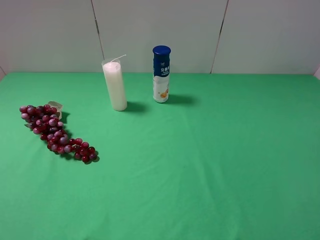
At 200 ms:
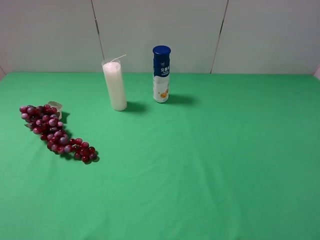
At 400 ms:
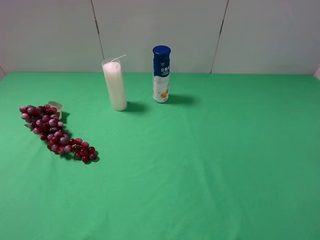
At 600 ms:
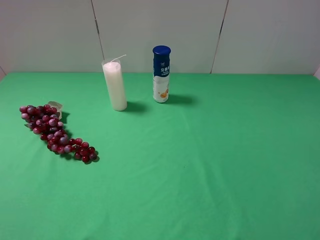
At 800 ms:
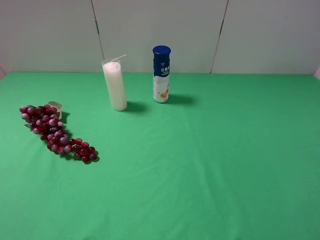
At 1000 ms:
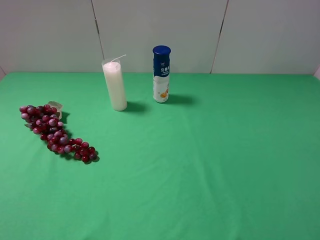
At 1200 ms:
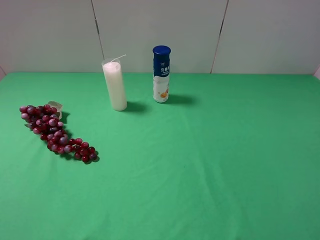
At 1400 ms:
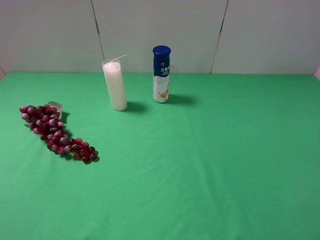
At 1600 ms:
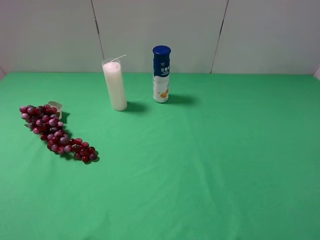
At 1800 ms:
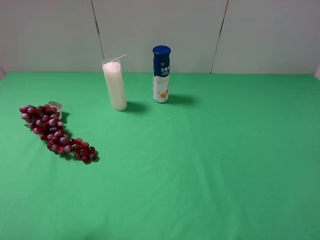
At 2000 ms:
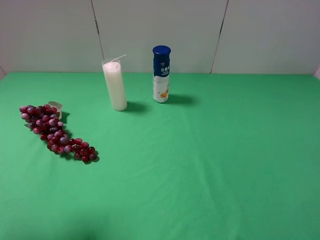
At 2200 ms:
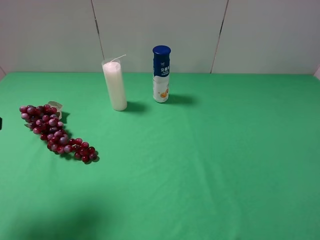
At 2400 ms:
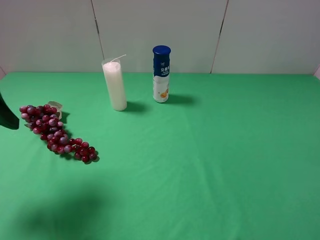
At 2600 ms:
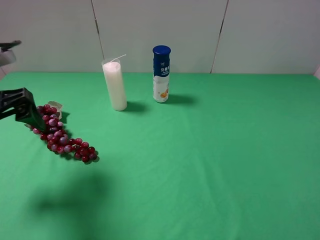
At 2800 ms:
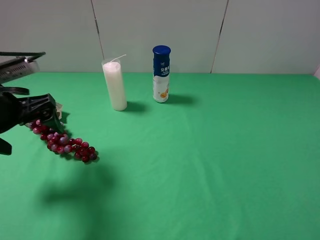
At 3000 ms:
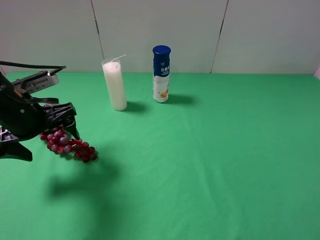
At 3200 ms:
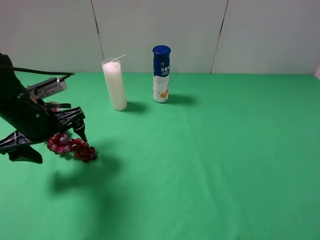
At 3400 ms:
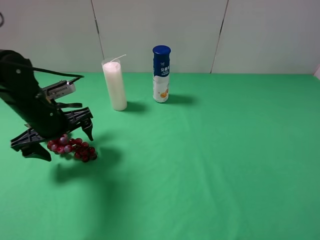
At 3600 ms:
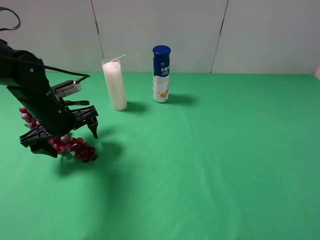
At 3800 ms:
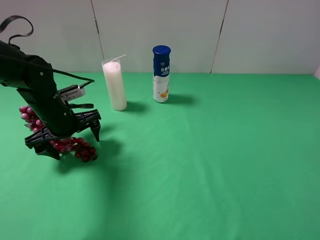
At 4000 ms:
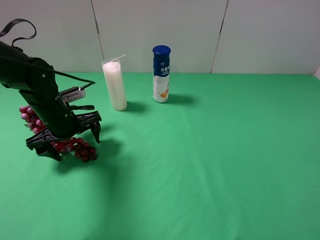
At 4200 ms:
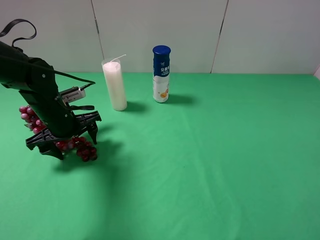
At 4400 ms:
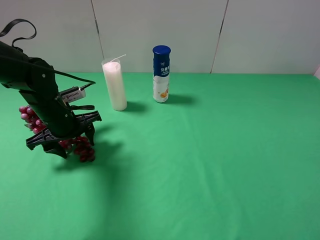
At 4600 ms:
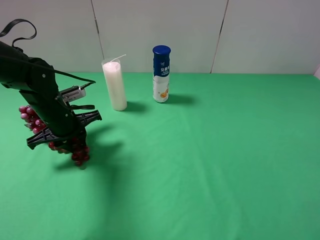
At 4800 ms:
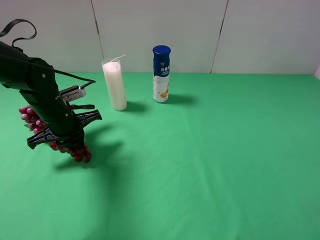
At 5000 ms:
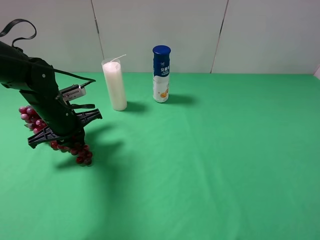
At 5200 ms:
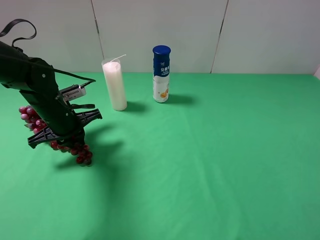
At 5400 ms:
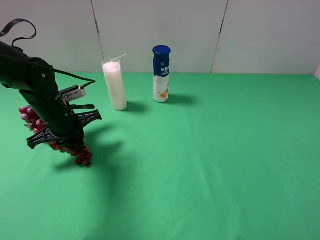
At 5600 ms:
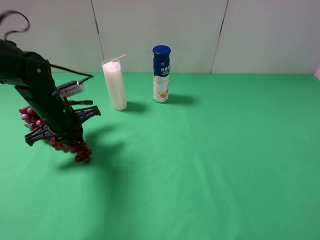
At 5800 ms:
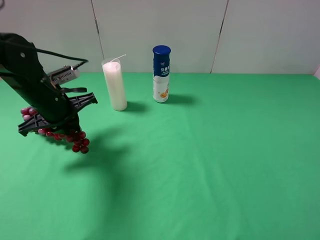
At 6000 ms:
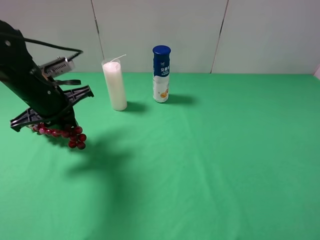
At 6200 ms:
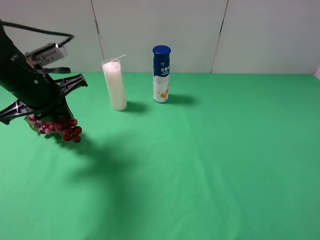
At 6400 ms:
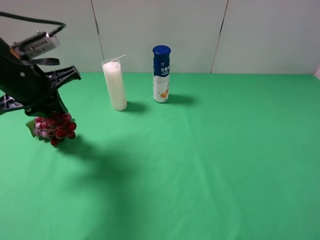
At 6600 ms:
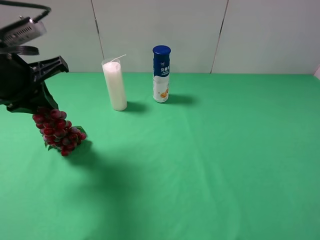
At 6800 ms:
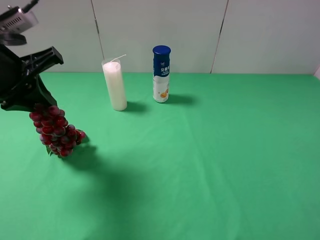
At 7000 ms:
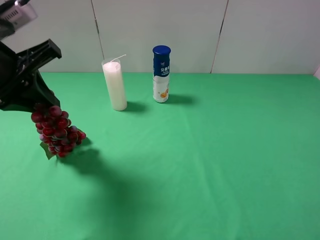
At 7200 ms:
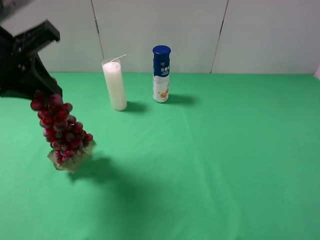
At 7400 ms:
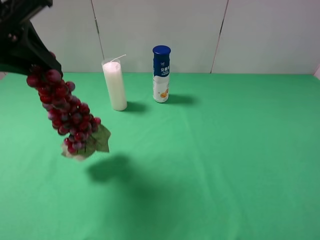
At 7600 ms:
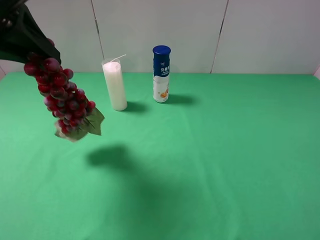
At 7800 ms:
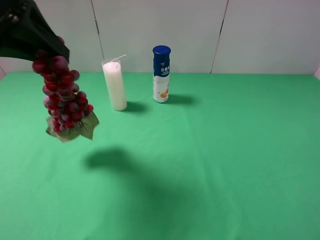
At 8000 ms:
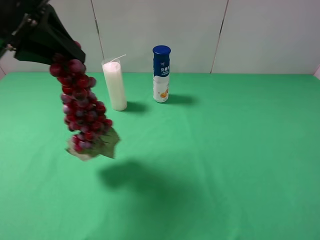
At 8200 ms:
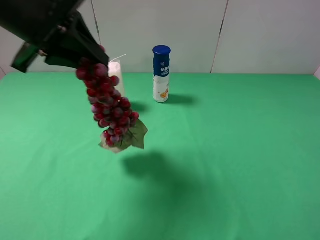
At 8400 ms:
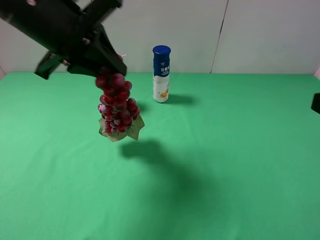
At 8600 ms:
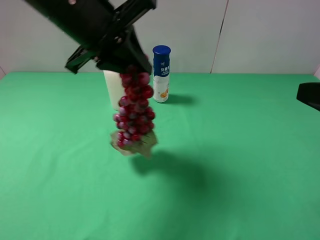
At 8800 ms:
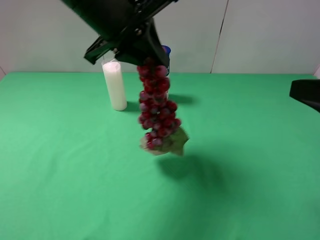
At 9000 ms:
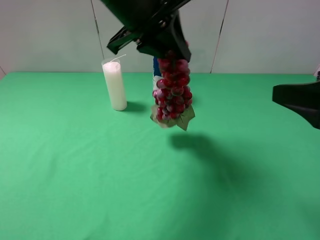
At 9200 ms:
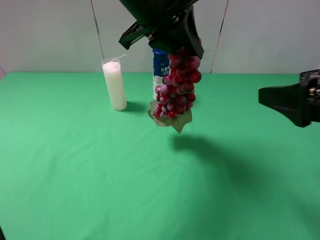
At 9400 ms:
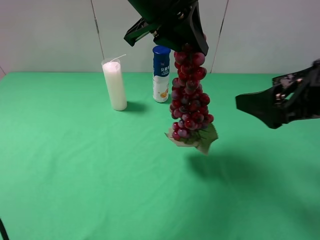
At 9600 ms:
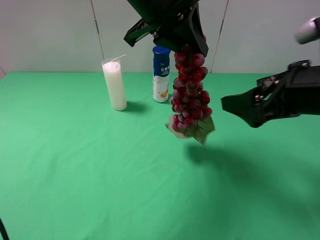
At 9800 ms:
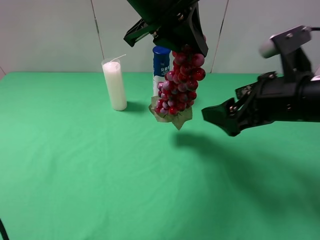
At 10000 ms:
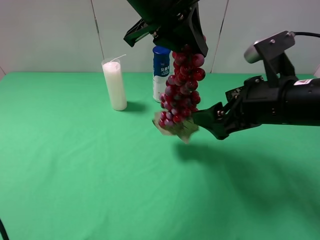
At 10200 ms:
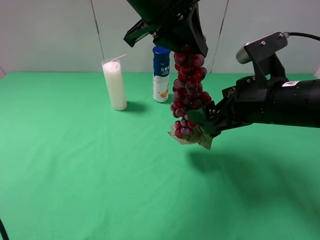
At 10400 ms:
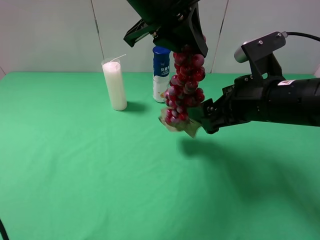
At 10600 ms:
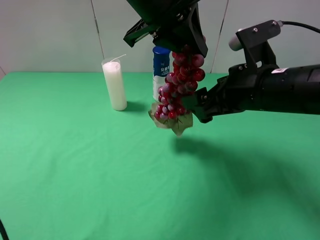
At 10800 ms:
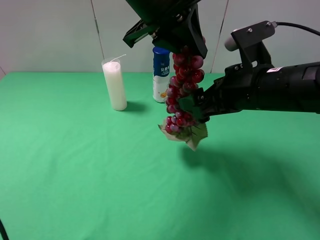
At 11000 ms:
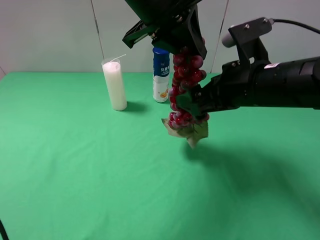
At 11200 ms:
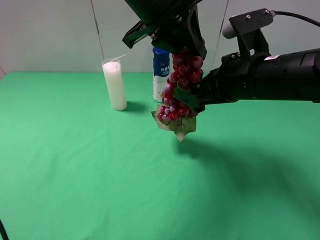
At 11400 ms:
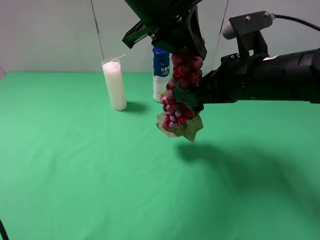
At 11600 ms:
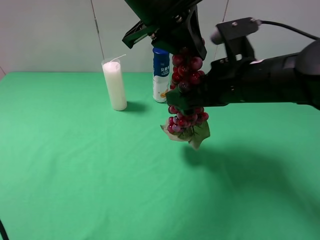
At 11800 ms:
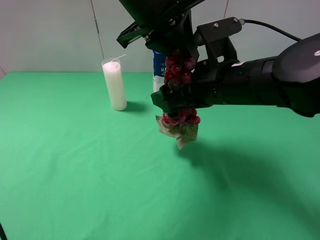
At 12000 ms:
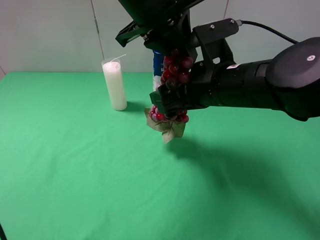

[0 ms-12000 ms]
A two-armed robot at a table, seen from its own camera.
Task of the whole recording: use the left gripper to pick up the item and transfer it from the left gripper to the right gripper.
Step, 0 ms to 4800 ms: Use the left gripper to grab the grape on the left side of the table.
1600 ms to 3000 ms: The left gripper moves forward, downward and to the right, about 25 cm.
3000 ms to 4400 ms: The left gripper heads downward and forward, covering approximately 10 cm, and closes.
4400 ms to 6000 ms: The left gripper heads upward, covering some 10 cm, and closes.
6000 ms to 7600 ms: The left gripper travels upward by roughly 20 cm.
7600 ms to 9000 ms: The right gripper heads forward, covering roughly 10 cm. The left gripper shifts about 15 cm to the right.
9000 ms to 10400 ms: The right gripper moves to the left, forward and downward, roughly 15 cm.
10400 ms to 12000 ms: The right gripper shifts approximately 5 cm to the left.

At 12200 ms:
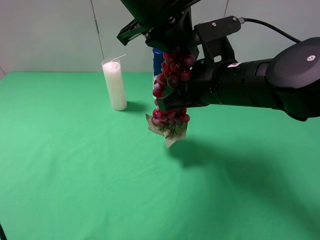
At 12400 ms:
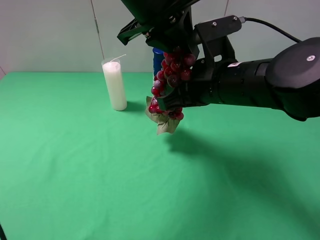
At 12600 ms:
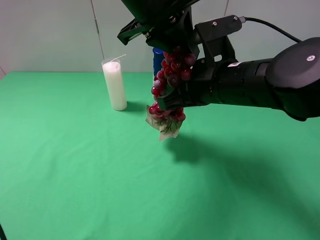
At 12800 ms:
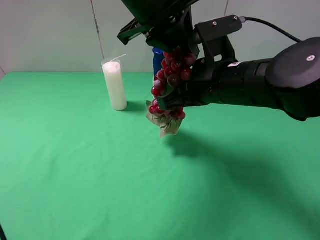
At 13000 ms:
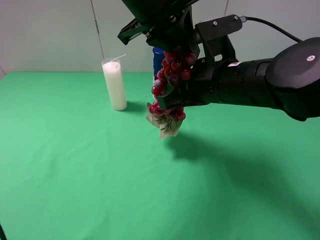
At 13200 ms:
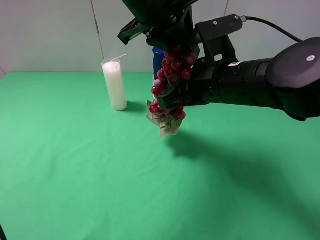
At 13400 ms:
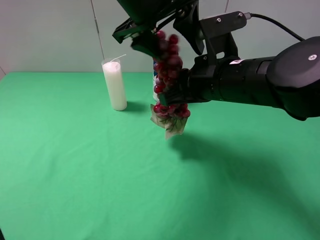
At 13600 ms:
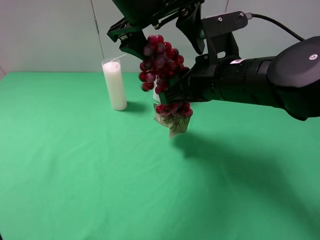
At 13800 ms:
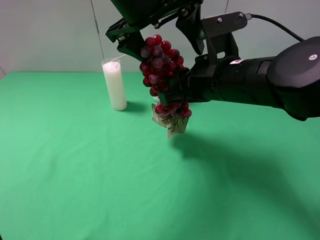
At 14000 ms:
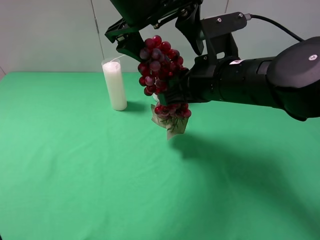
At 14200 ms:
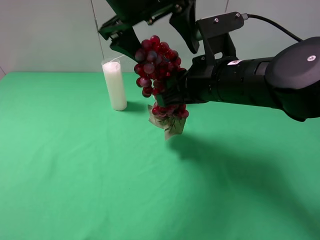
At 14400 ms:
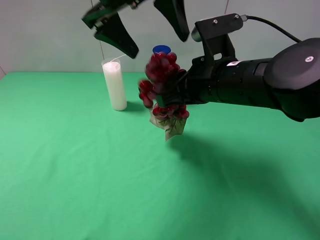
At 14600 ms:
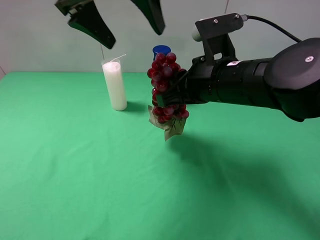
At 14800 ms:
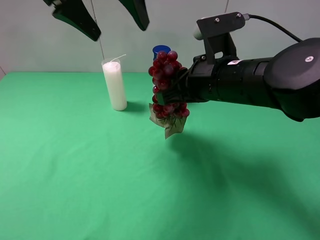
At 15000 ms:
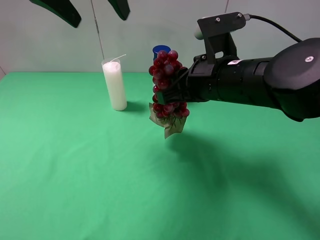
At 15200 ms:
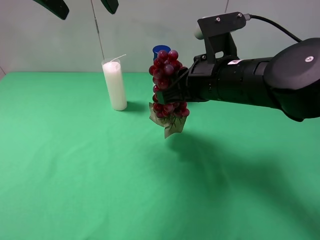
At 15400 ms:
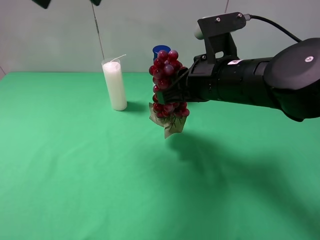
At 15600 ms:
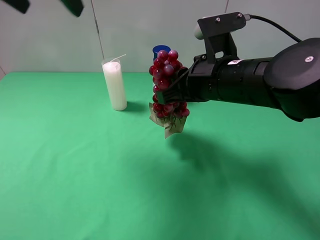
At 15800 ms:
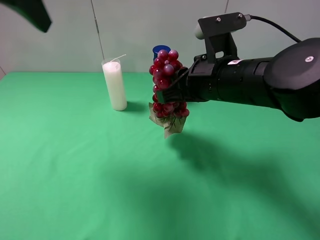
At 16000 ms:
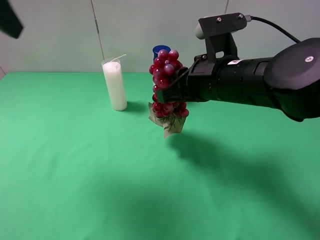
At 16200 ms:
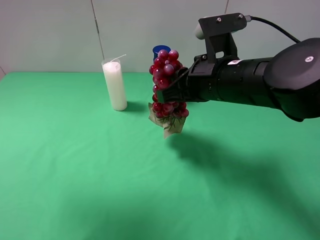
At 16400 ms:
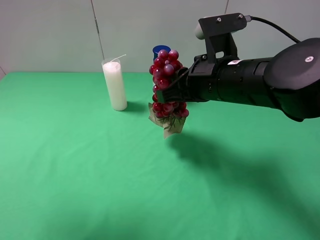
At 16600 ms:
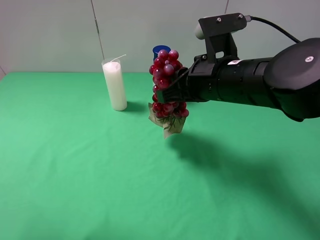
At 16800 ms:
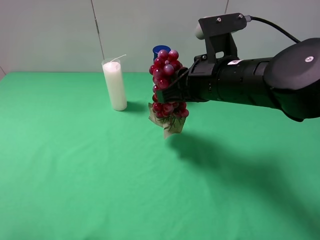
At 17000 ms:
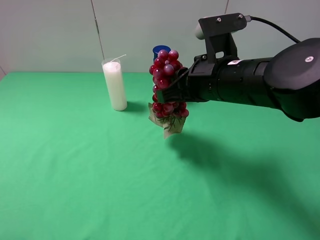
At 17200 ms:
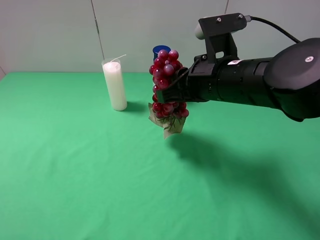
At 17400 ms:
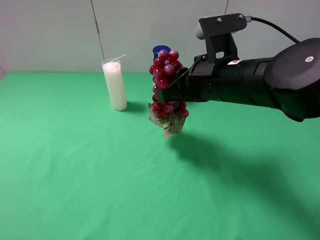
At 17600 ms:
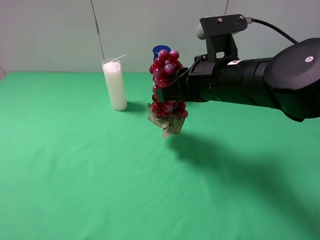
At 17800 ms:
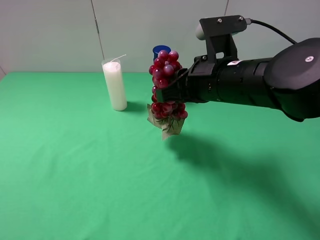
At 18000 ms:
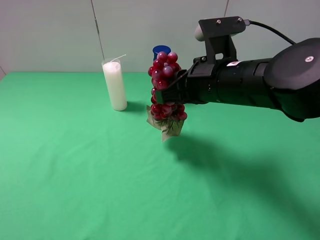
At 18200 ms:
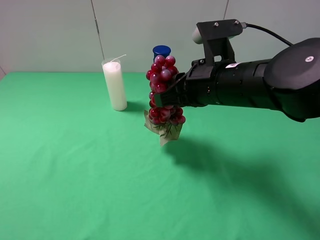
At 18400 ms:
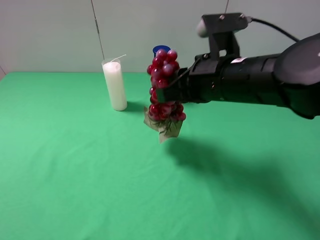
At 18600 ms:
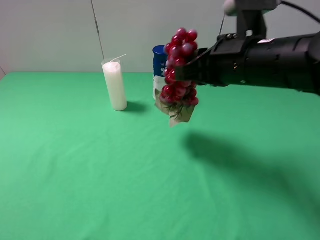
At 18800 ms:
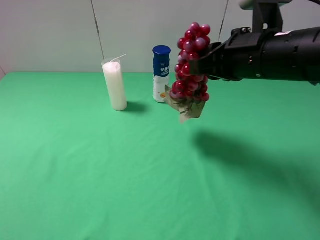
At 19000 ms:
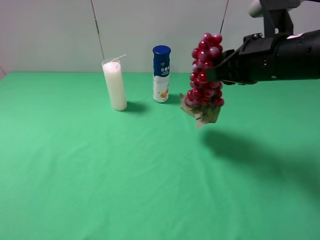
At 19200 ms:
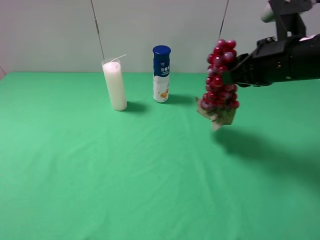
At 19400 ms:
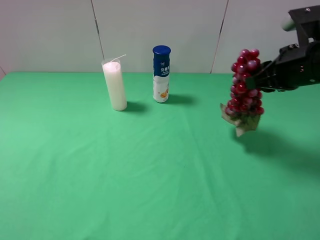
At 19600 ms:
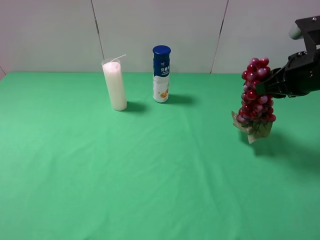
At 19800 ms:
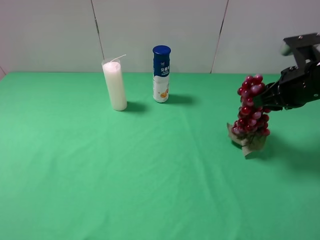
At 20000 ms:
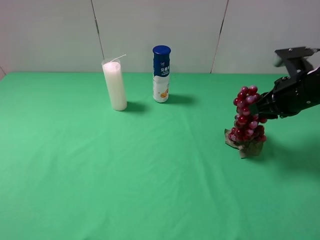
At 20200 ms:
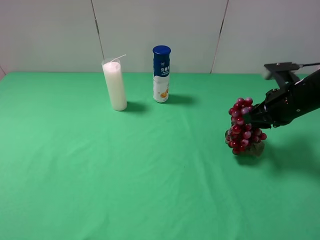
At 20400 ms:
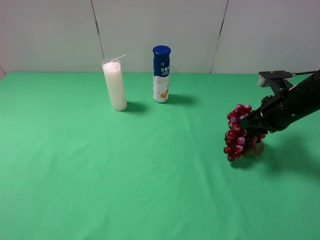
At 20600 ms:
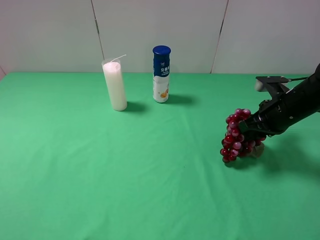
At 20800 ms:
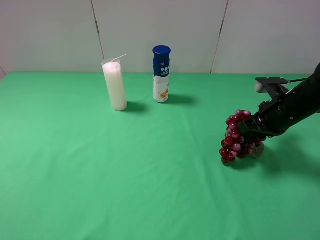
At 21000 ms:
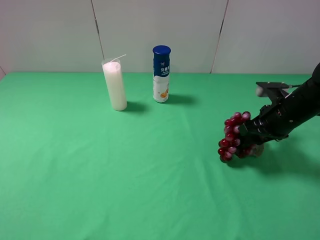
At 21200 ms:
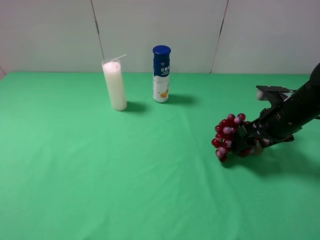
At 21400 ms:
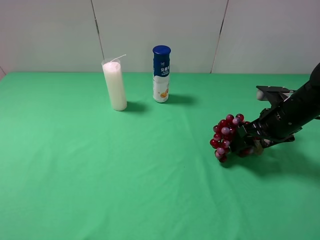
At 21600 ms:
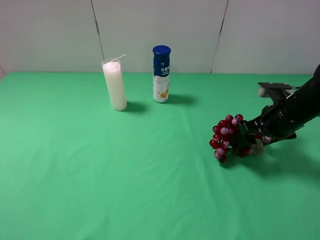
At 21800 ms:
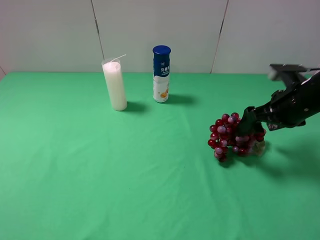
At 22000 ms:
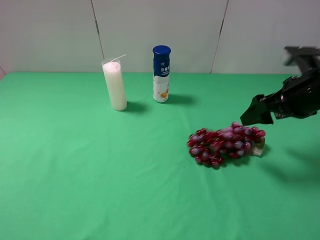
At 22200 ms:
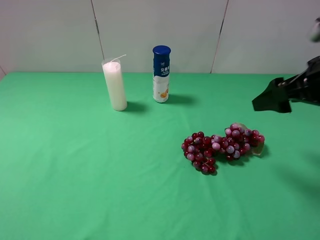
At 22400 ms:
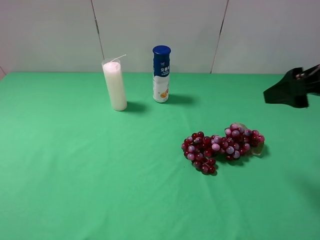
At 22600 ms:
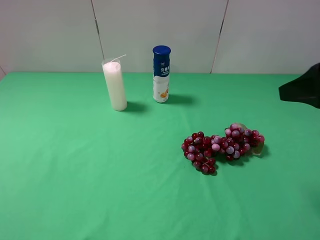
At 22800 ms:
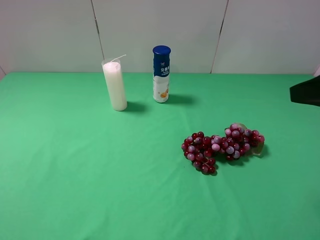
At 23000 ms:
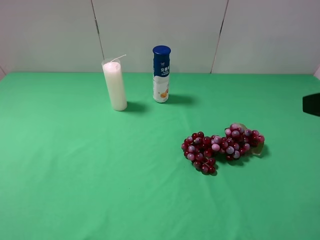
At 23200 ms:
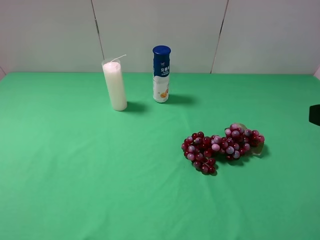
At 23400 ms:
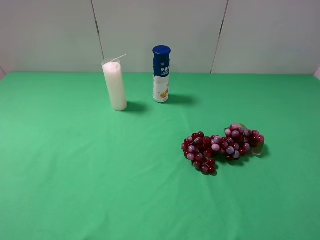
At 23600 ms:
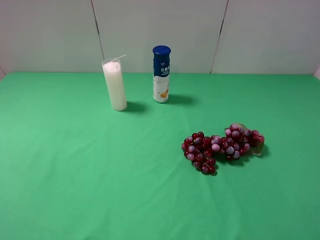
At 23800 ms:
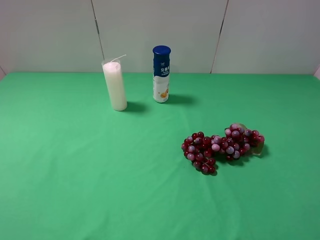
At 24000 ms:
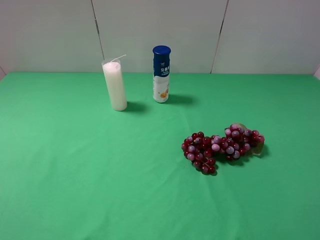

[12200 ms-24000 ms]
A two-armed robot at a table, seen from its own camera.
Task of the whole recording: use the left gripper to pick up the item and transfer it from the left gripper to the right gripper.
Step, 14600 ms to 21800 ms: The right gripper places grape on the right side of the table.
12200 ms to 13600 ms: The left gripper opens.
13600 ms to 15200 ms: The left gripper is displaced to the left and upward by approximately 15 cm.
15200 ms to 16600 ms: The left gripper is displaced backward and to the left by approximately 25 cm.
16600 ms to 18200 ms: The left gripper shifts some 10 cm downward and backward.
18200 ms to 19600 ms: The right gripper shifts some 15 cm to the right.
19600 ms to 21000 ms: The right gripper goes about 10 cm downward, and opens.
21000 ms to 22600 ms: The right gripper shifts some 20 cm upward and backward.
22600 ms to 24000 ms: The right gripper is displaced backward by roughly 10 cm.
